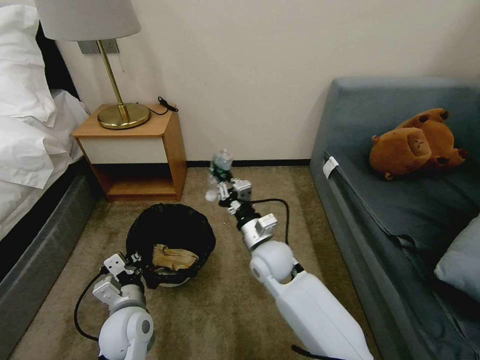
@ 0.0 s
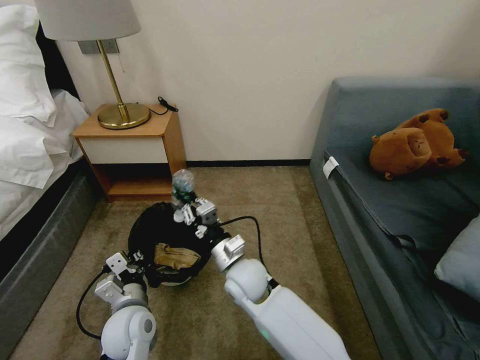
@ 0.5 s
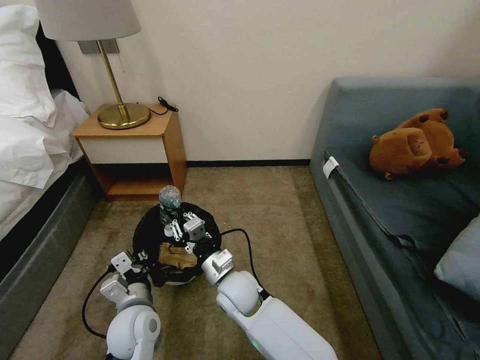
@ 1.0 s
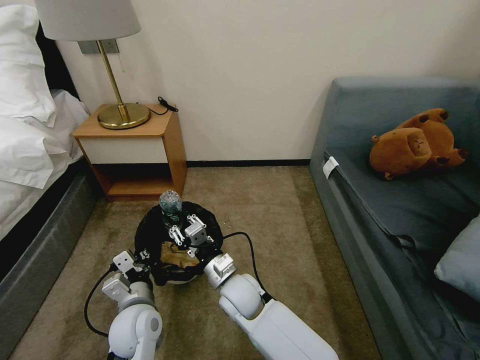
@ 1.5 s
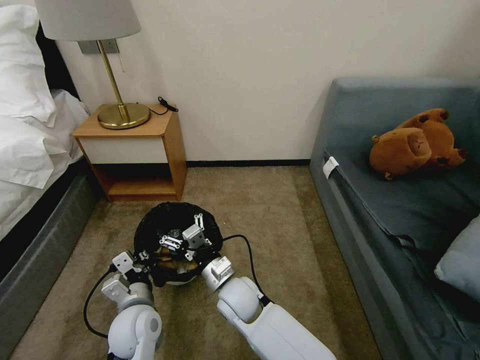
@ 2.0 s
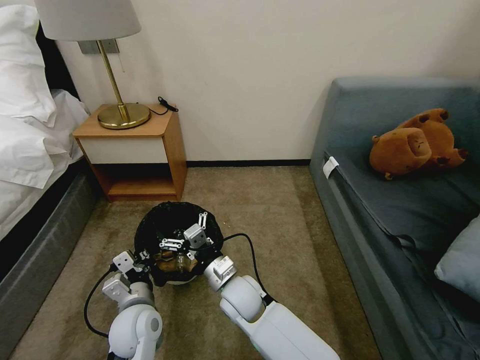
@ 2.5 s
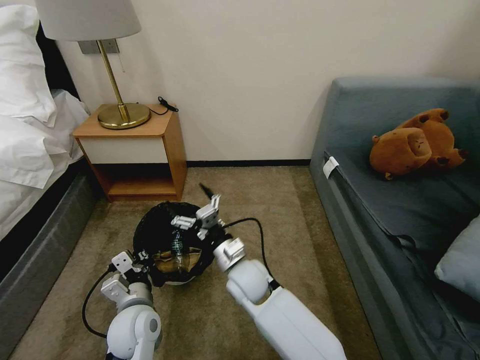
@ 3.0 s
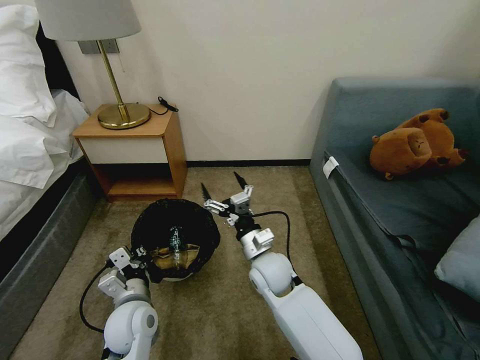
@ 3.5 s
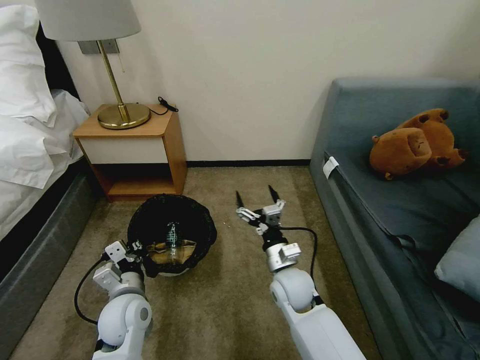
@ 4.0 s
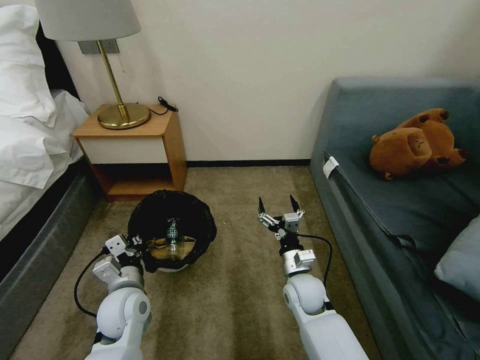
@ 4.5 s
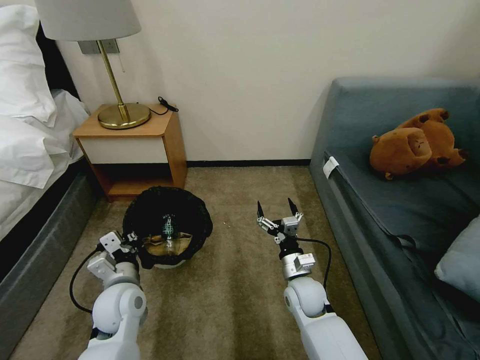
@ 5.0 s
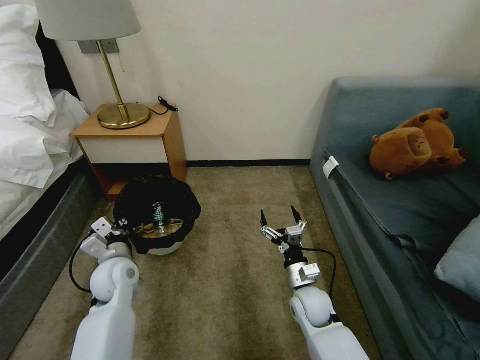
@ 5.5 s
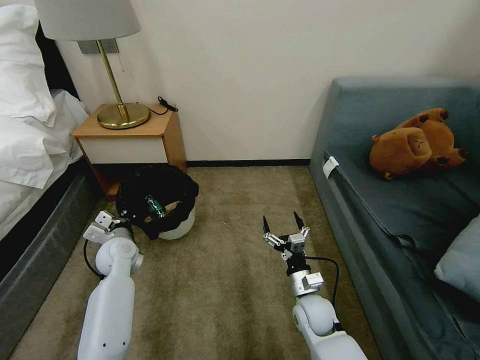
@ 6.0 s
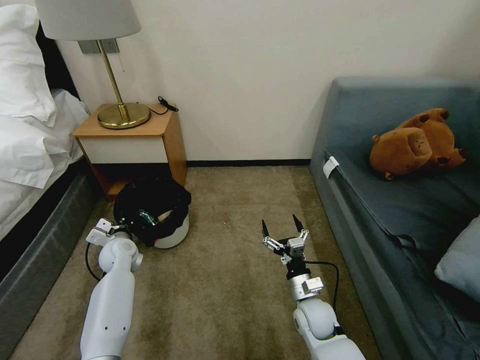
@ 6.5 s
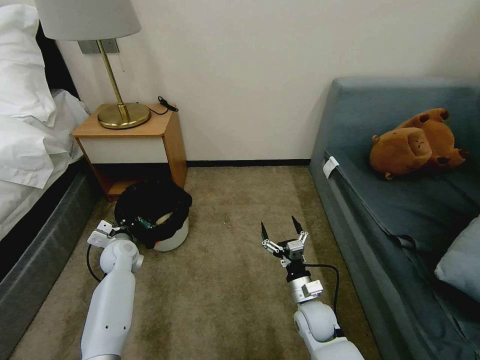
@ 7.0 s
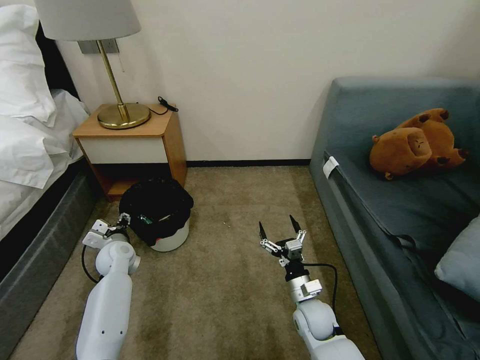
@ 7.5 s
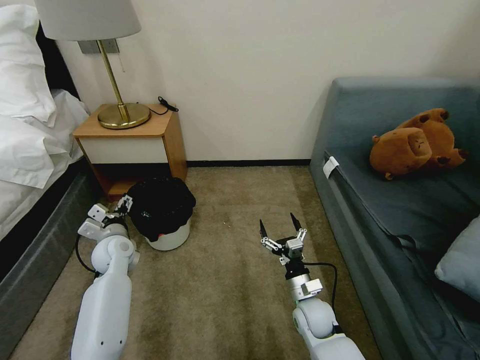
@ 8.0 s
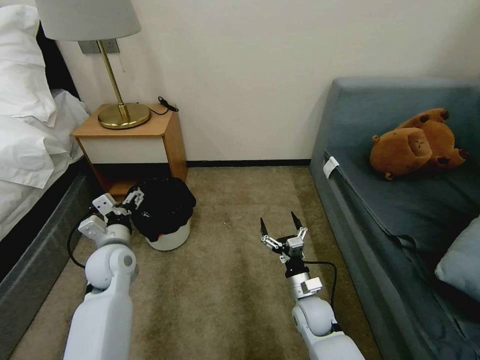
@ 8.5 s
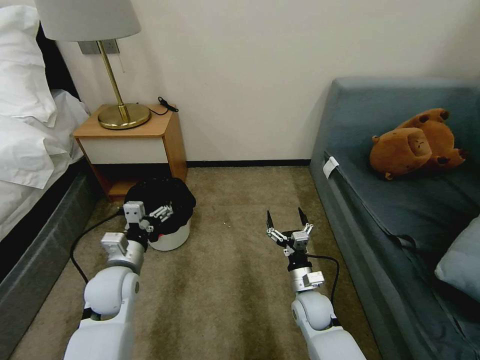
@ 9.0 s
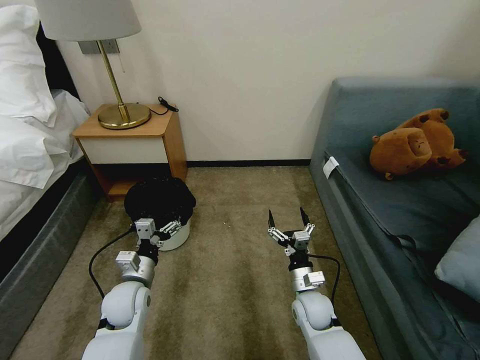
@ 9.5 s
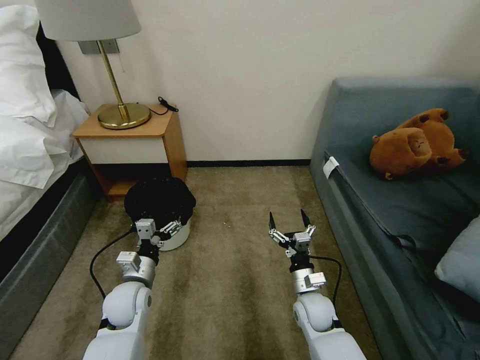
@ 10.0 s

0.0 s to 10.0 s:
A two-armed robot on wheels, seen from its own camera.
Task of the whole recording: Pick up the trash bin, then pick up the garbage on the floor and place it into the trash bin.
0.0 to 2.0 s: The right gripper moves to the left, backward and downward, approximately 10 cm, and opens its fingers.
2.0 to 4.0 s: The right gripper goes some 10 cm to the right.
4.0 to 6.0 s: The right gripper travels downward and to the right by roughly 10 cm. The left gripper goes some 15 cm forward and to the left.
6.0 to 8.0 s: The left gripper opens.
8.0 to 10.0 s: The left gripper moves backward and to the right, about 15 cm.

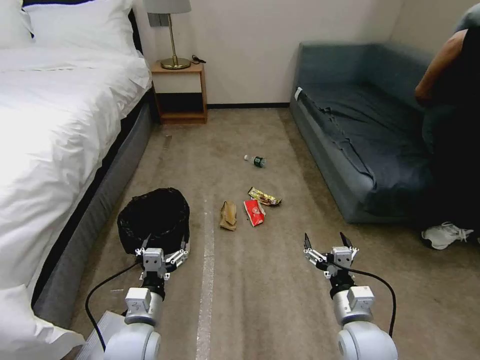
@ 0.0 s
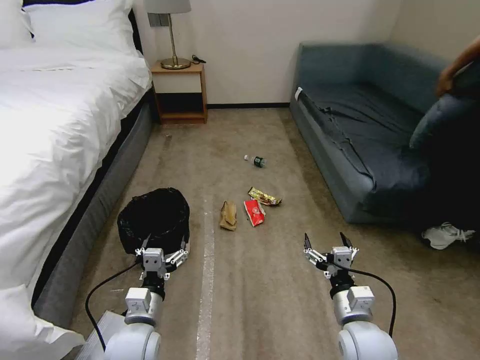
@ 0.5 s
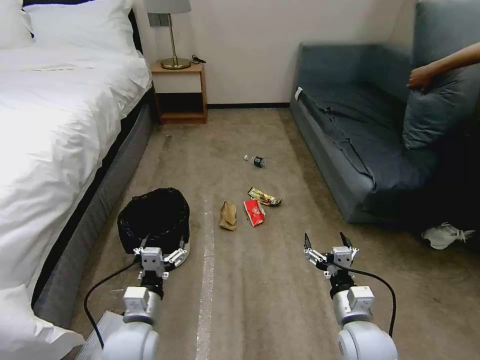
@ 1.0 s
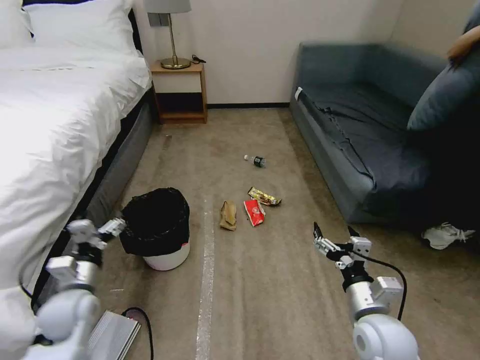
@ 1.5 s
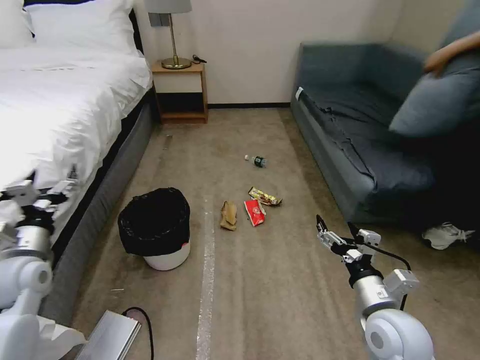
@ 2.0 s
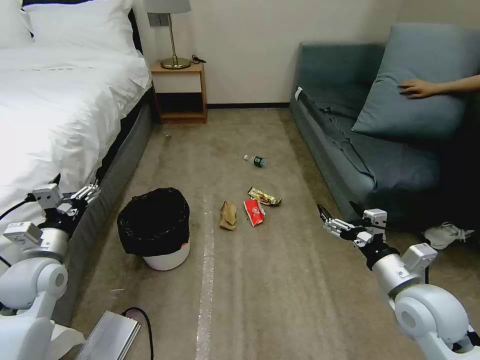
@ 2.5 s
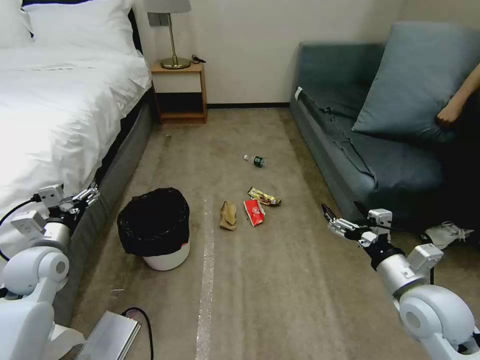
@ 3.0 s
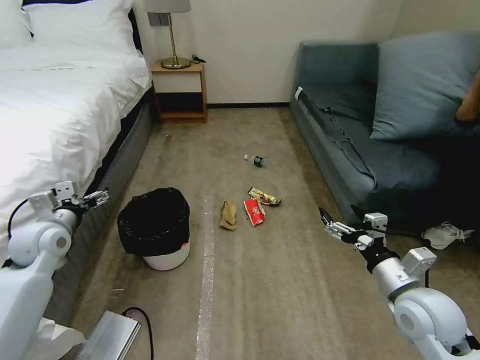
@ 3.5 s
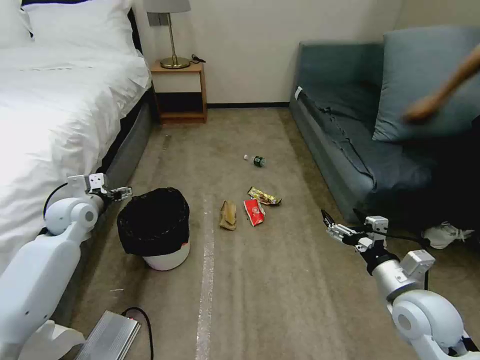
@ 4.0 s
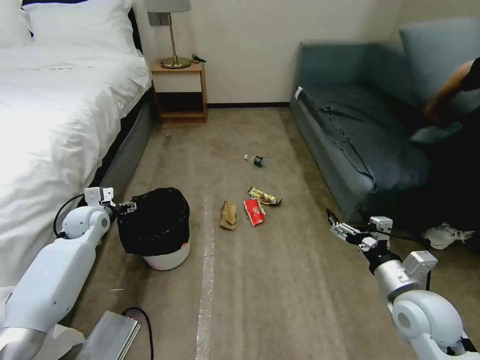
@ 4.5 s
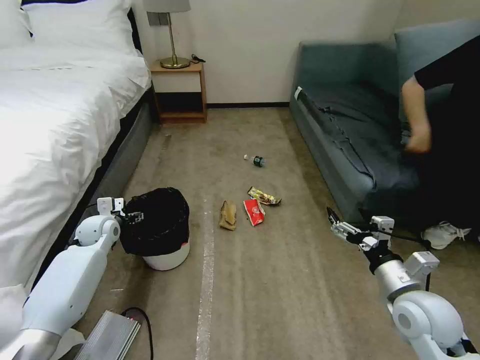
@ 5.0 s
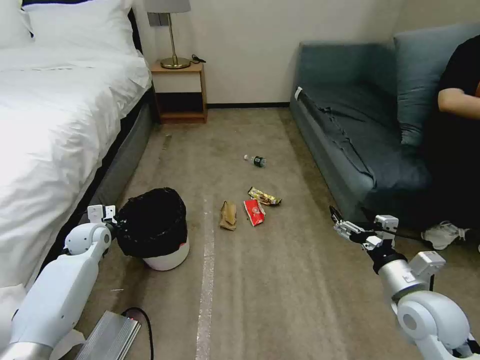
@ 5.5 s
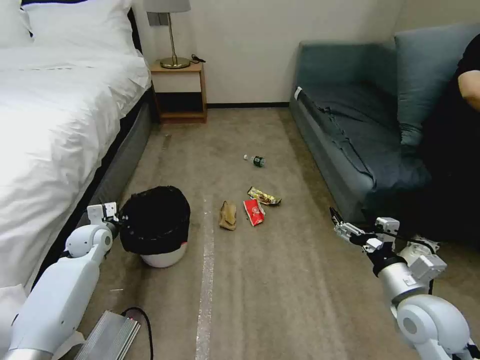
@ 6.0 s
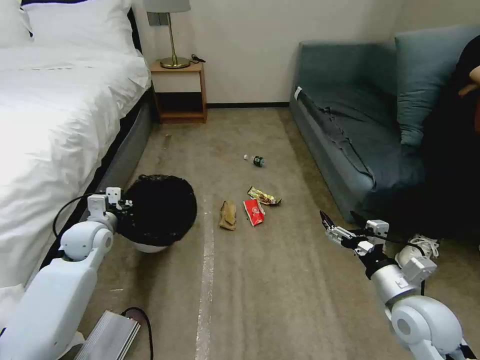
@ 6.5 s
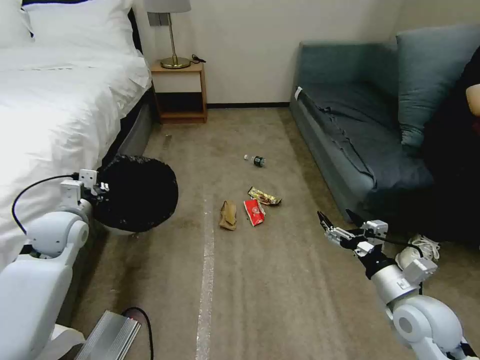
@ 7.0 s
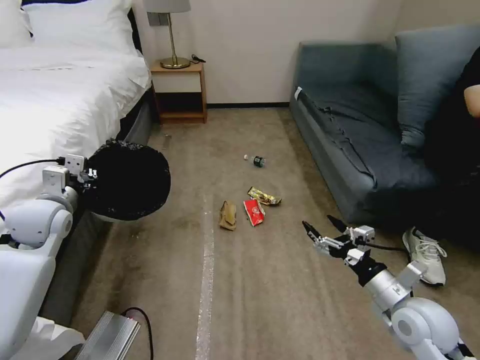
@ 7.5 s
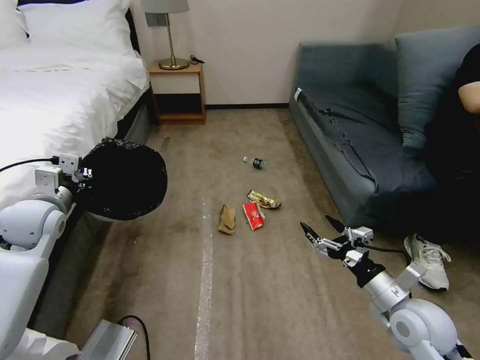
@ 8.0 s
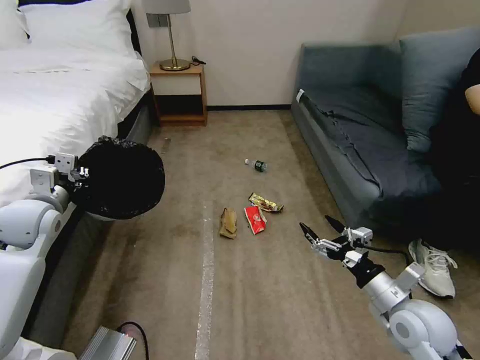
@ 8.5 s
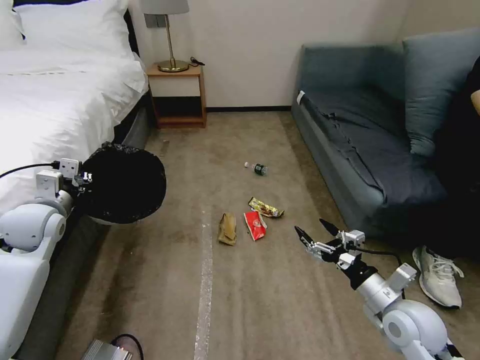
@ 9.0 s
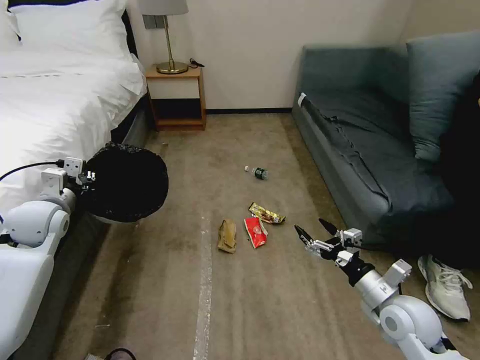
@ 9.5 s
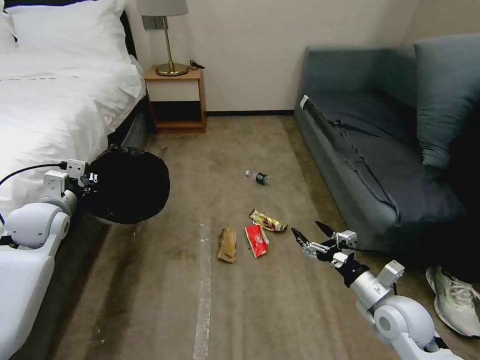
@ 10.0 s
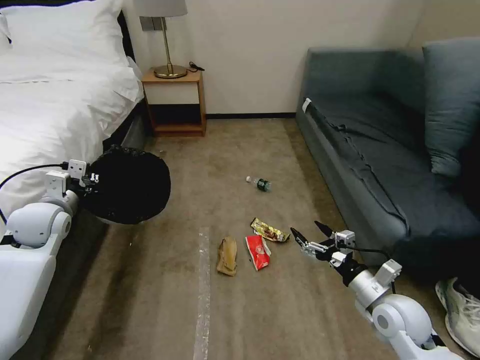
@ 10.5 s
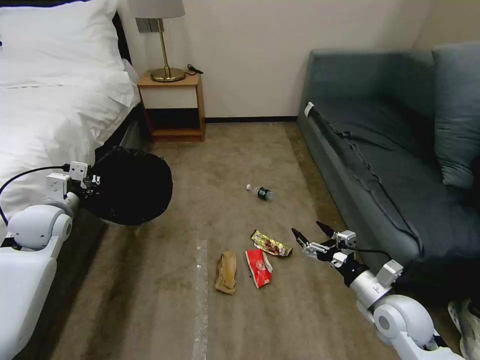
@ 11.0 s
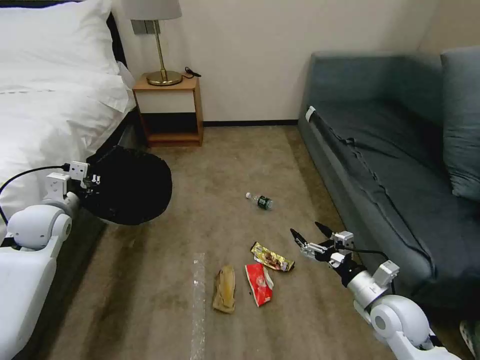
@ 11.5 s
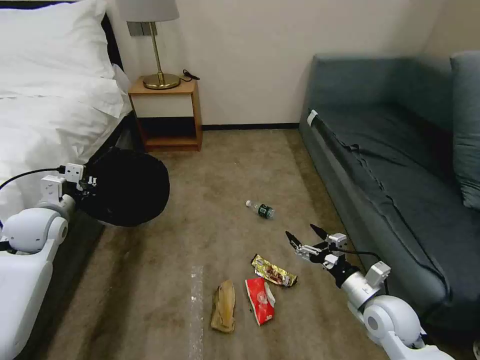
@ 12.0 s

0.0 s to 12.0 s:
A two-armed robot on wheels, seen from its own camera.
Task of the whole recording: Pick up the trash bin, then pick up the garbage on the floor and place it into the trash bin.
2.0 to 4.0 s: The left gripper goes about 15 cm forward. Meanwhile the right gripper shifts roughly 5 cm to the right.
4.0 to 6.0 s: The left gripper moves downward, approximately 10 cm, and closes up.
6.0 to 8.0 s: The left gripper is displaced upward by about 15 cm.

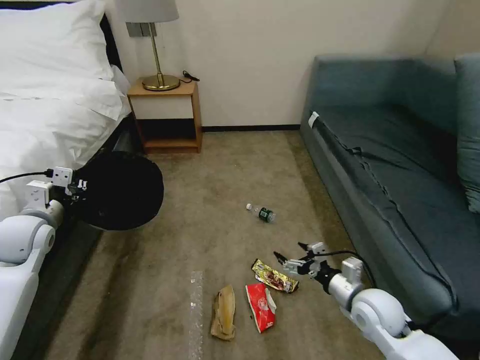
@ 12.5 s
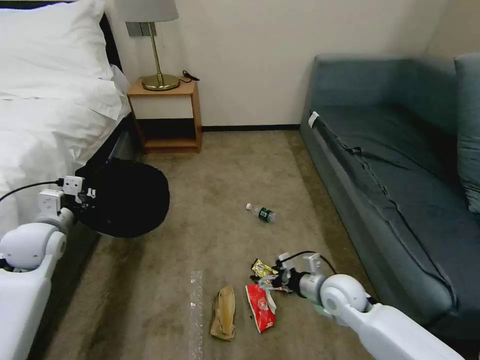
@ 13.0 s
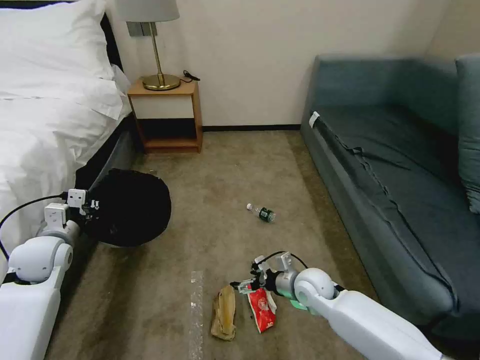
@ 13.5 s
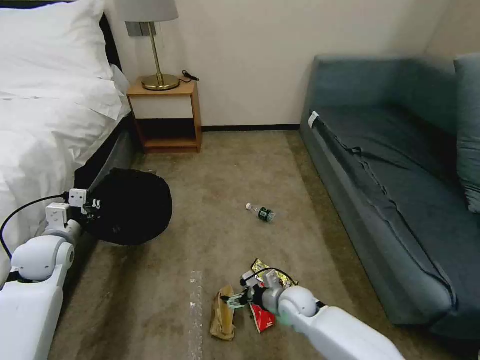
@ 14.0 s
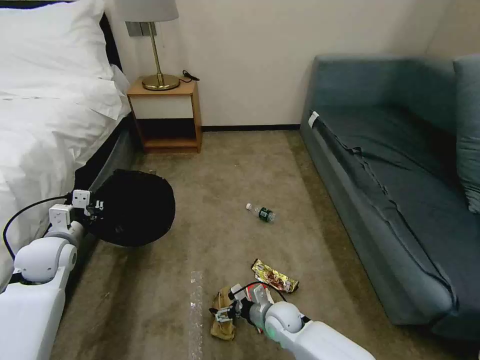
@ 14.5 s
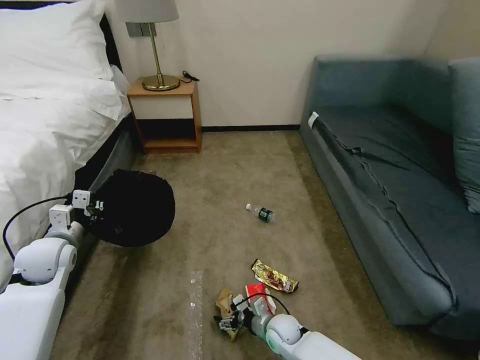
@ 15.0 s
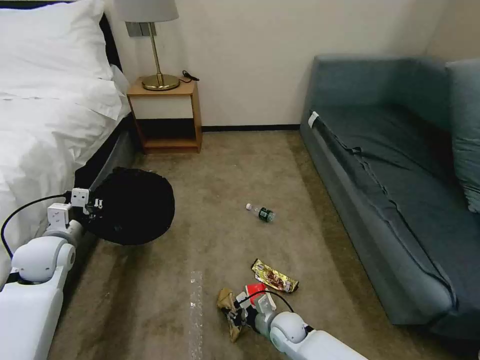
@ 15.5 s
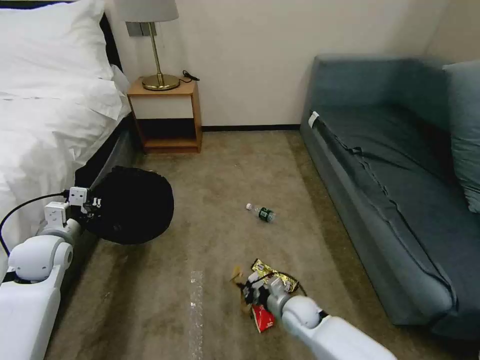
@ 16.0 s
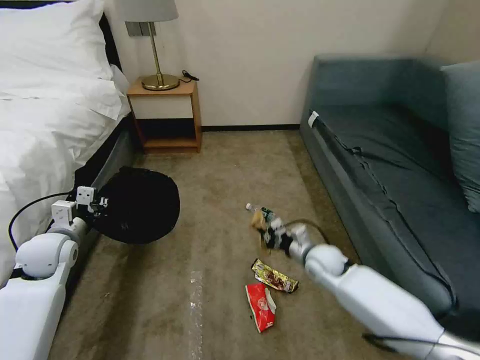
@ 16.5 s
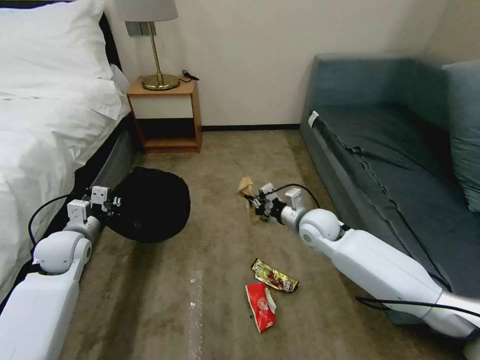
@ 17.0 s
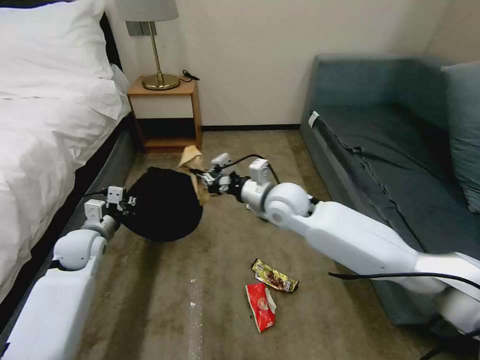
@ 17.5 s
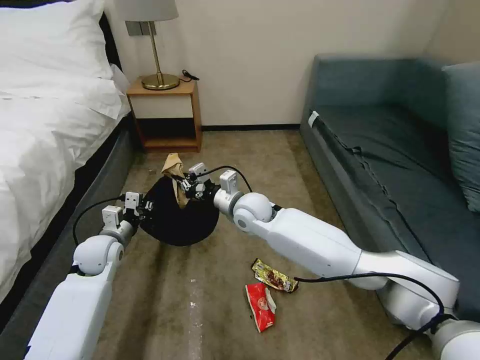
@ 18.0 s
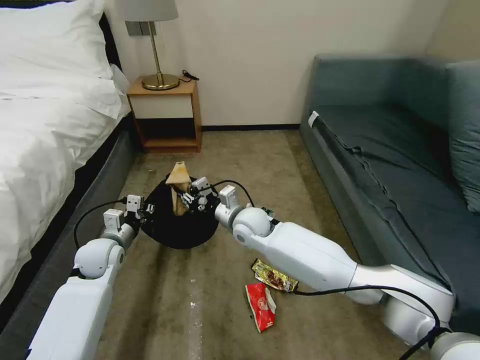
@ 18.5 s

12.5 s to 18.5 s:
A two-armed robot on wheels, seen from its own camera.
Task of the whole recording: Pick up the trash bin, then pick up the garbage on the floor and place it into the trash bin.
12.5 to 14.5 s: The left gripper goes roughly 5 cm downward; the right gripper goes about 25 cm to the left and downward.
14.5 to 16.5 s: The right gripper is displaced upward, to the right and forward by about 20 cm, and closes up.
16.5 to 18.5 s: The left gripper heads to the right and downward, covering some 10 cm, while the right gripper shifts roughly 20 cm to the left and upward.
